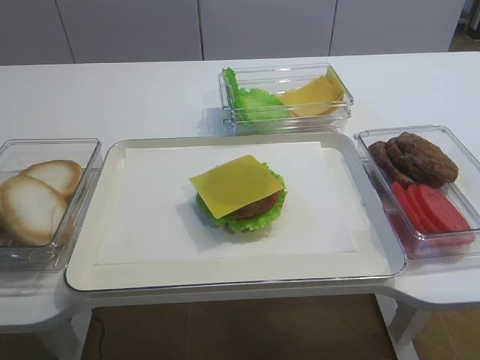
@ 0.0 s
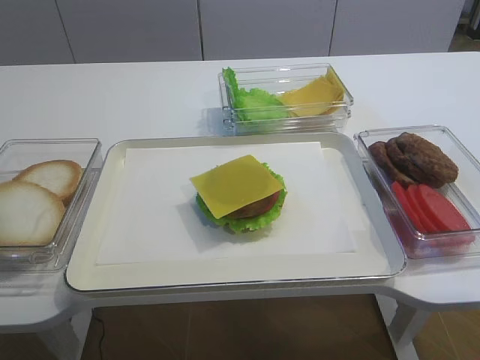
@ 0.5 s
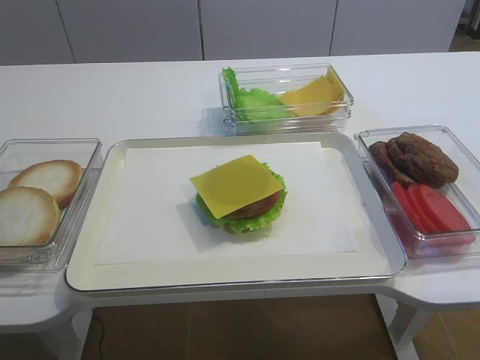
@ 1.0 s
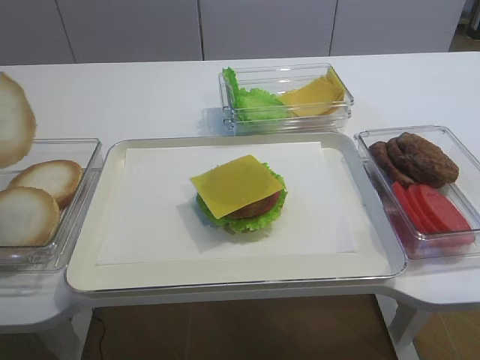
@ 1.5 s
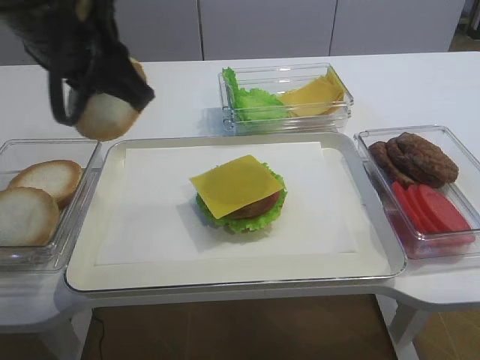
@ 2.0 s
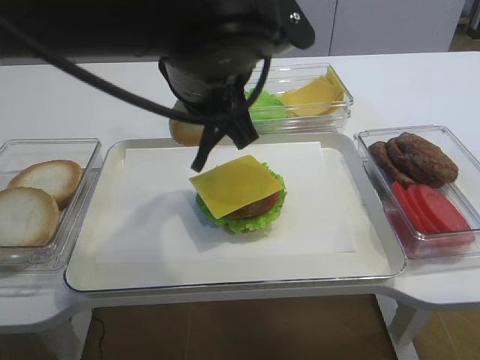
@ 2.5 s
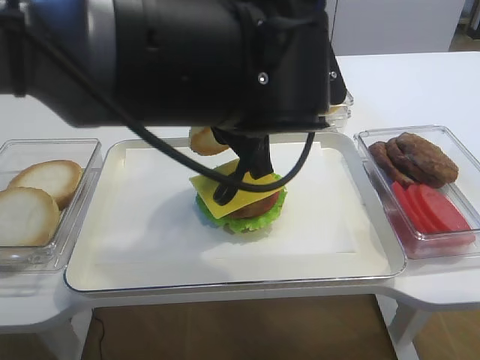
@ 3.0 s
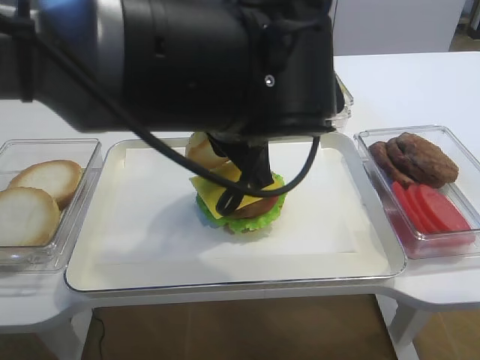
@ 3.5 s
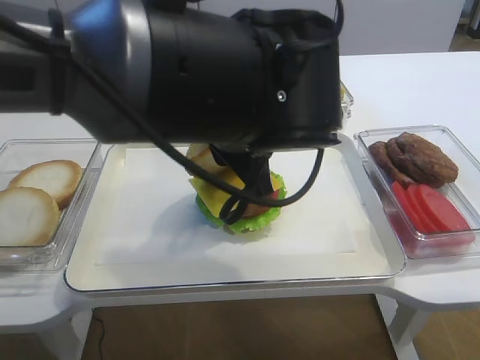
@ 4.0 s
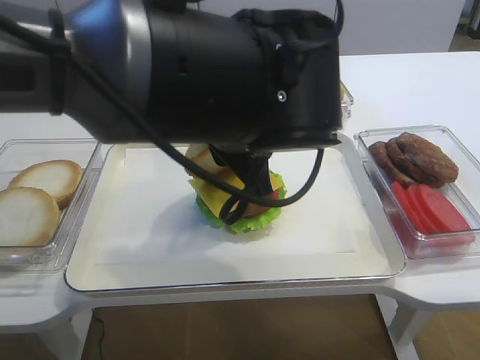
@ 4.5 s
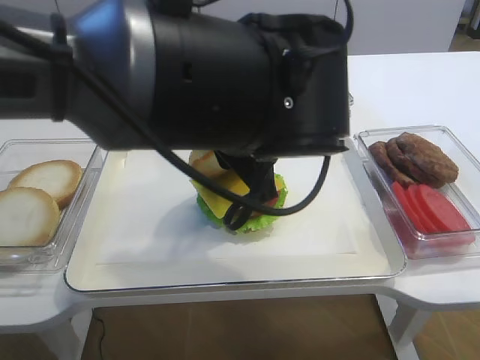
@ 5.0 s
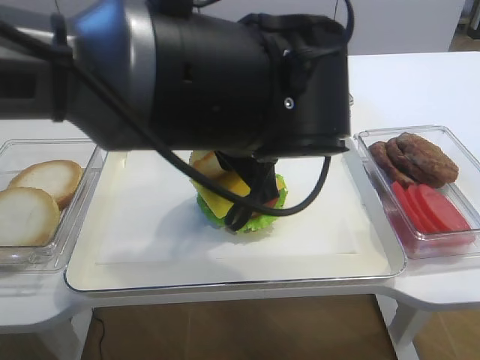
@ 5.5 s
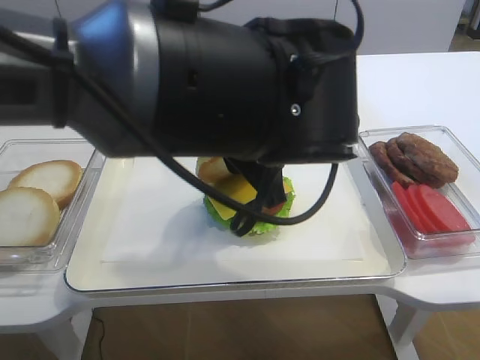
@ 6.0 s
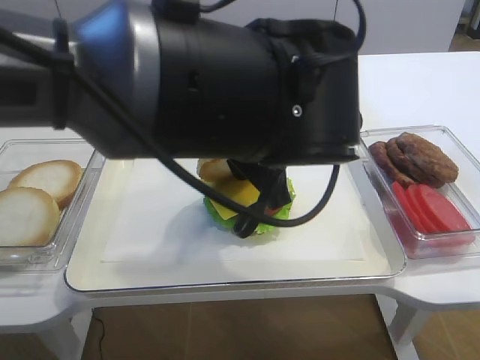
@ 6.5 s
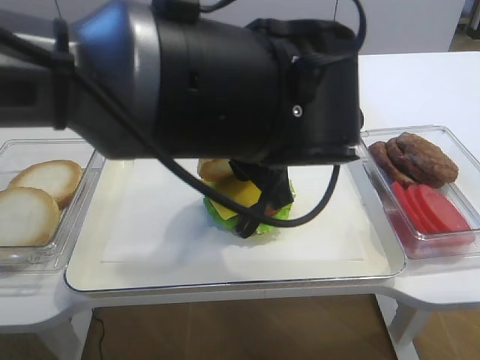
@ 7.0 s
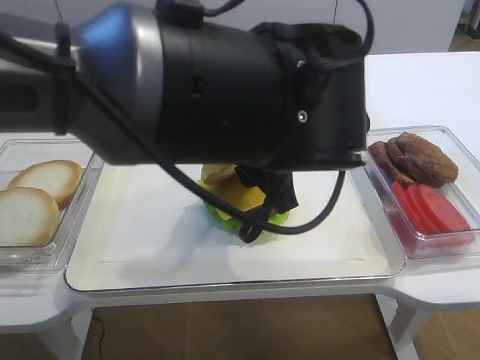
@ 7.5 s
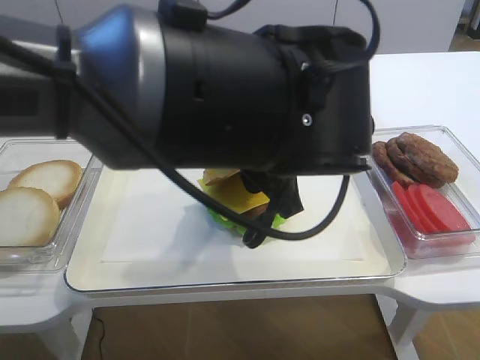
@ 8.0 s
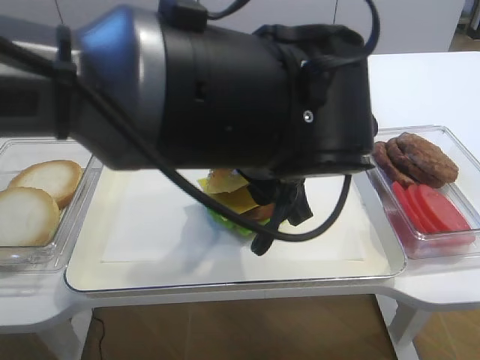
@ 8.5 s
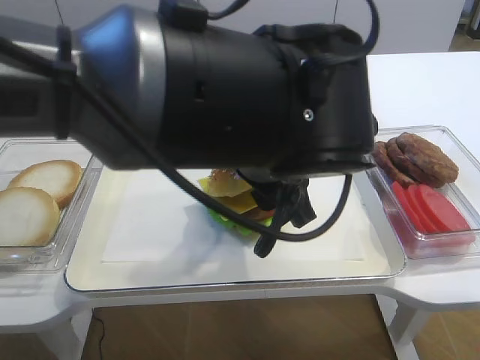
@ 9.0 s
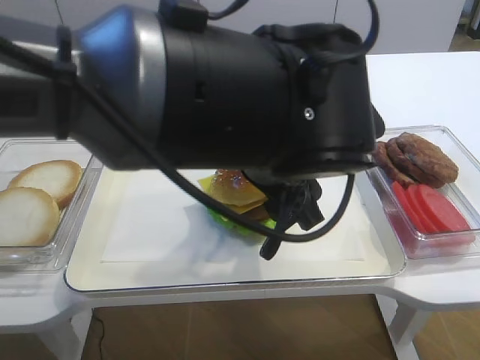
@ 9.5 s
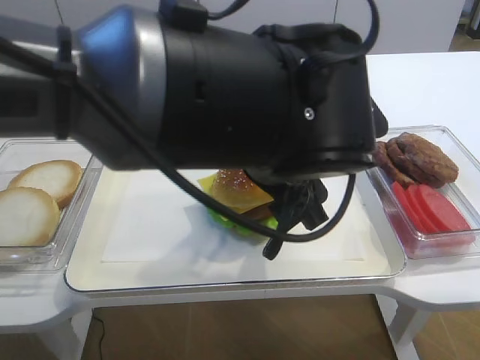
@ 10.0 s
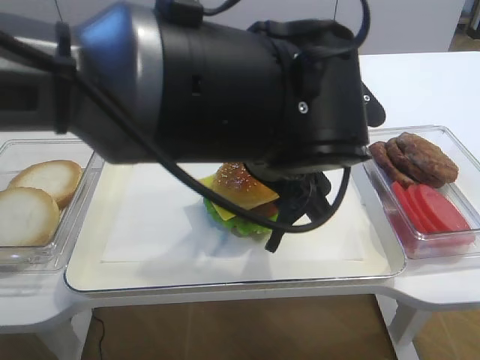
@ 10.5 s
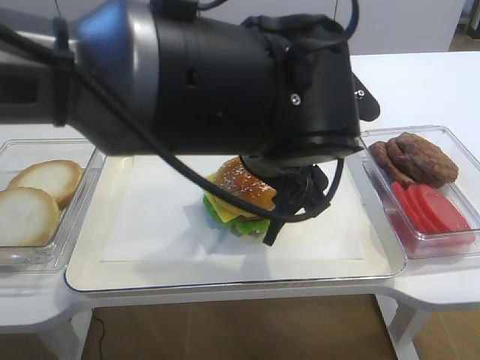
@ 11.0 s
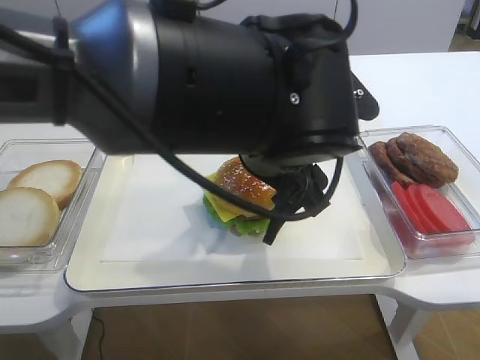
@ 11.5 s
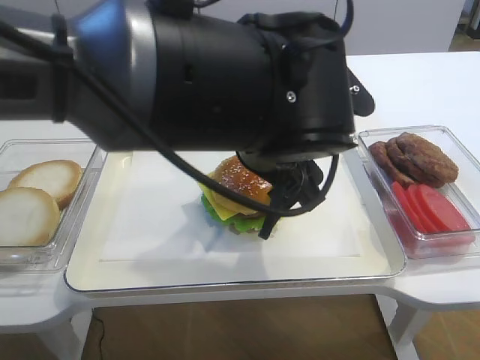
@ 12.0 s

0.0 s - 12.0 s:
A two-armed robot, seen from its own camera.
0.0 s - 2.0 s: The left gripper heads to the right and upward, covering roughly 25 cm.
2.0 s - 4.0 s: The left gripper moves to the right and downward, approximately 15 cm.
4.0 s - 6.0 s: Neither gripper changes place.
6.0 s - 8.0 s: Both grippers stay about where they are.
8.0 s - 10.0 s: The left gripper opens its fingers.
10.0 s - 12.0 s: The grippers make only small movements.

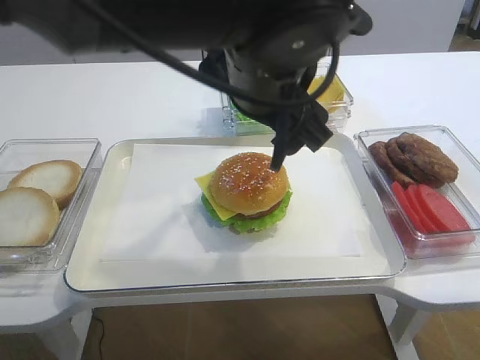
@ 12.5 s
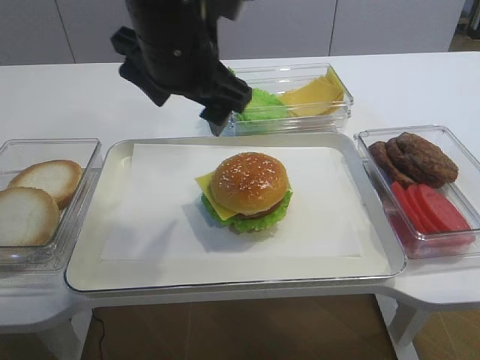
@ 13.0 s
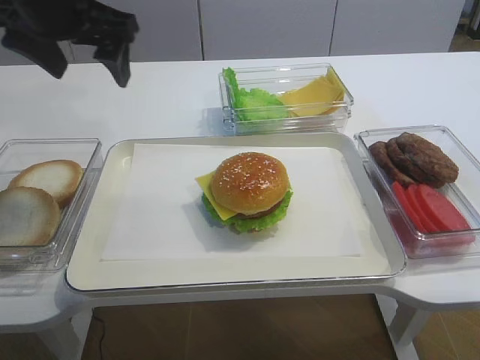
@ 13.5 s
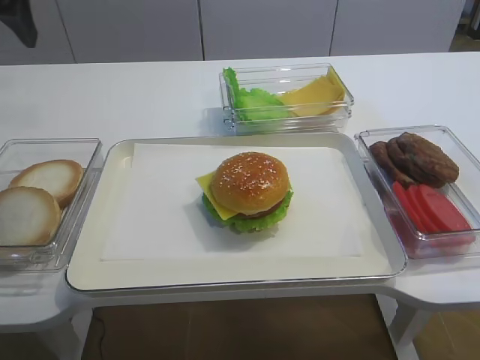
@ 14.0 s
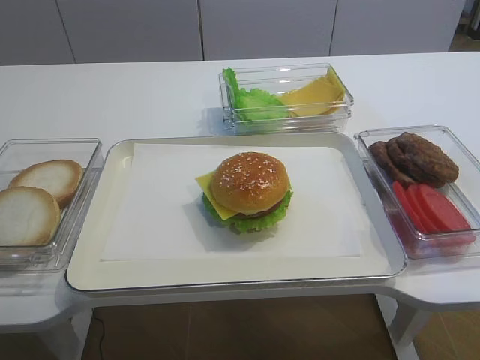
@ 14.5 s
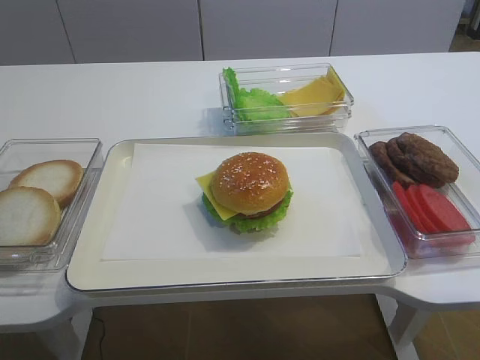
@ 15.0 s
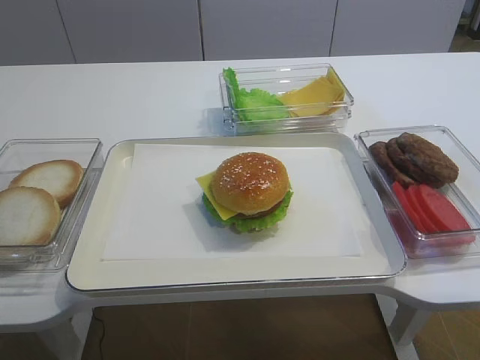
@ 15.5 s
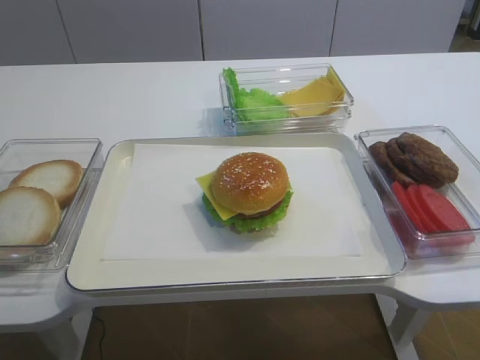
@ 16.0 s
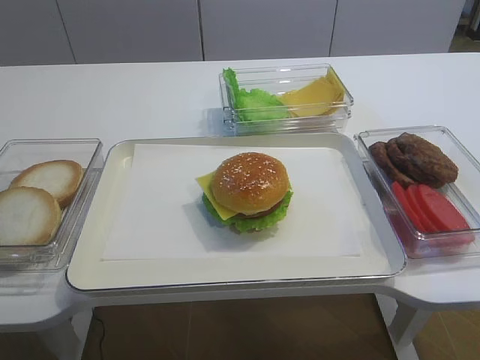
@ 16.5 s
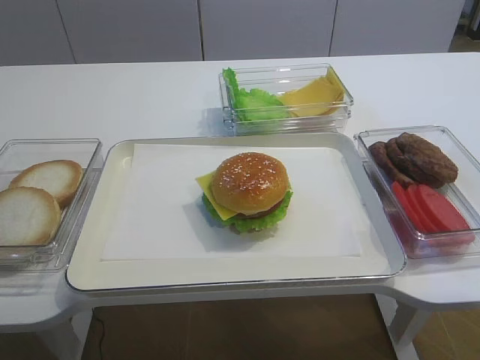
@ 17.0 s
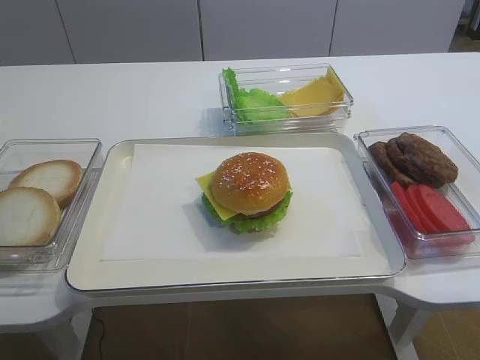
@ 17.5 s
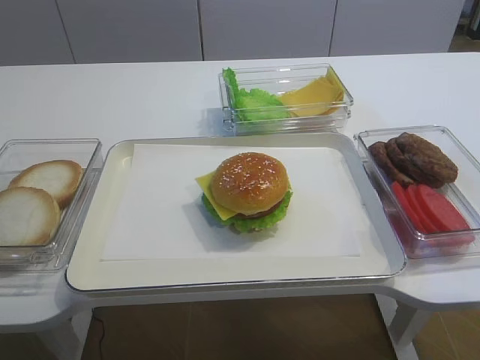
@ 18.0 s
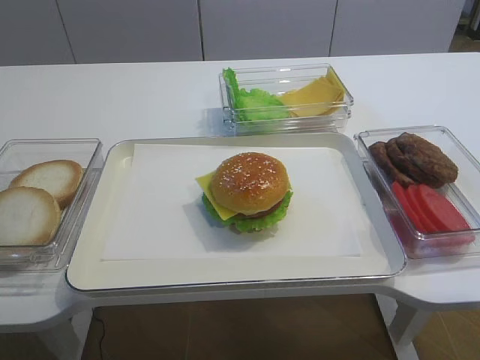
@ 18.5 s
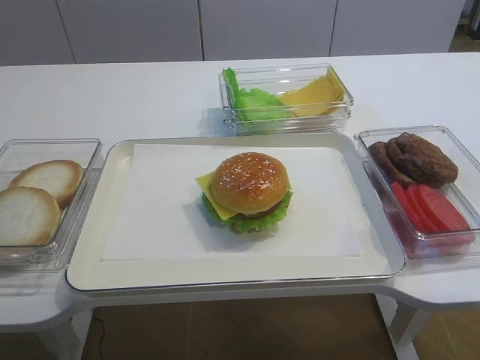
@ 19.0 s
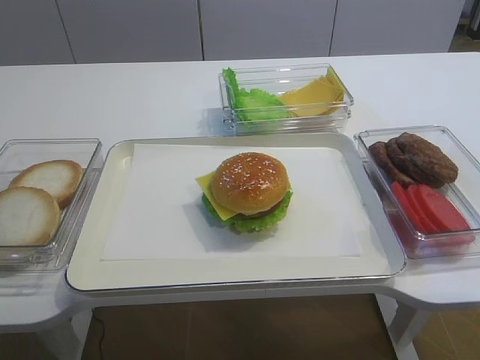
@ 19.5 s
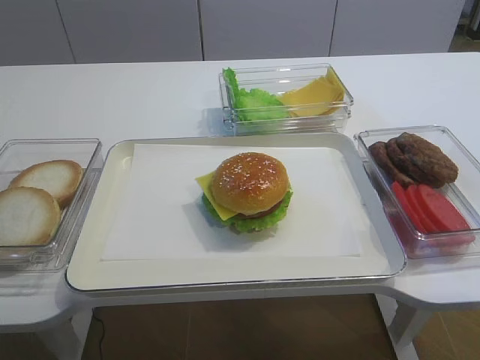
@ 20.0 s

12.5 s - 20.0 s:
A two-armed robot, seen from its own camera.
12.5 s - 14.5 s: The left gripper shifts some 30 cm to the left.
18.0 s - 20.0 s: The two grippers keep their place.

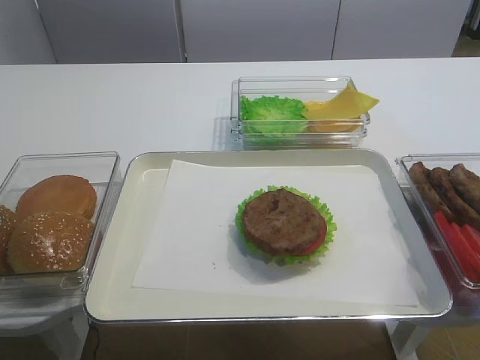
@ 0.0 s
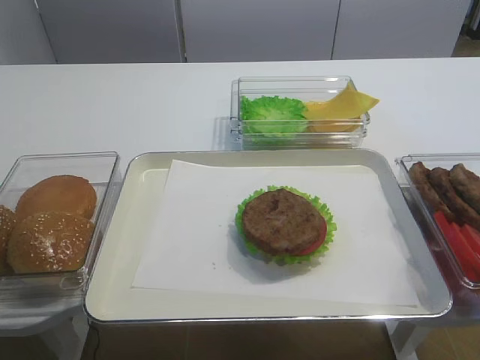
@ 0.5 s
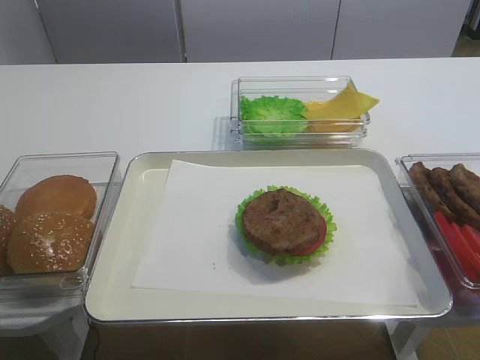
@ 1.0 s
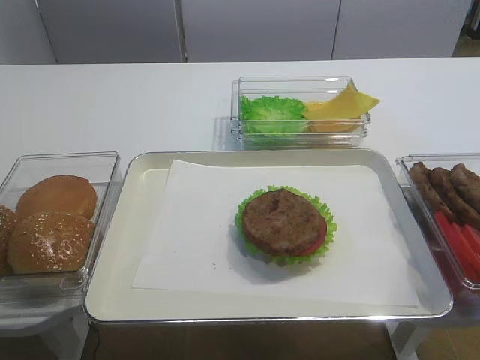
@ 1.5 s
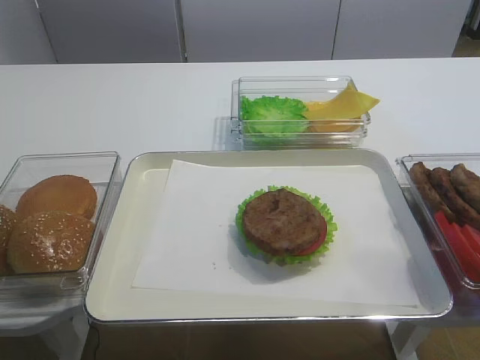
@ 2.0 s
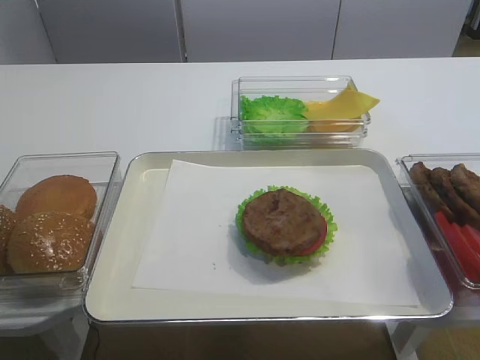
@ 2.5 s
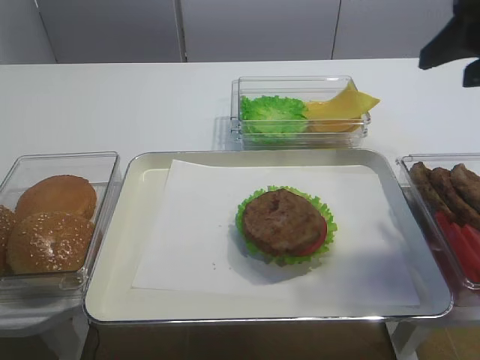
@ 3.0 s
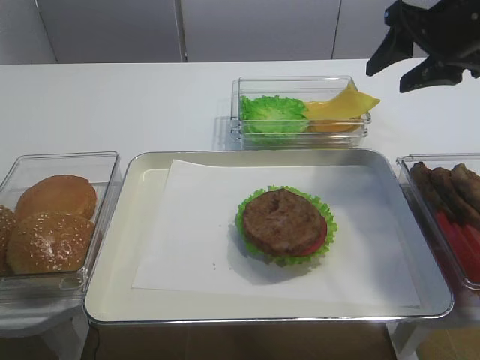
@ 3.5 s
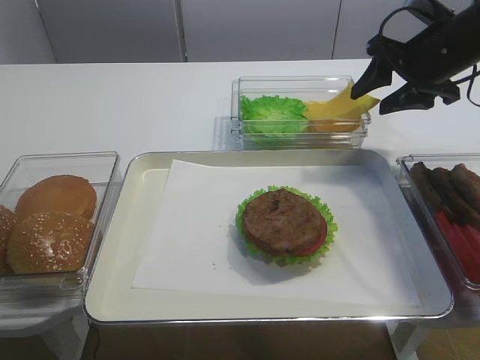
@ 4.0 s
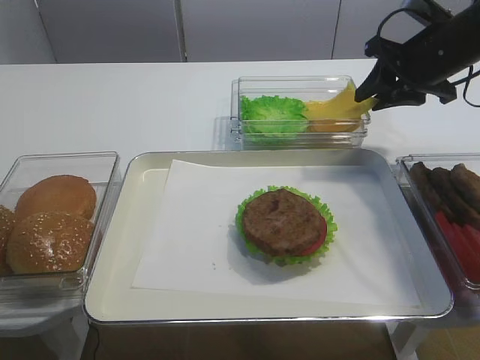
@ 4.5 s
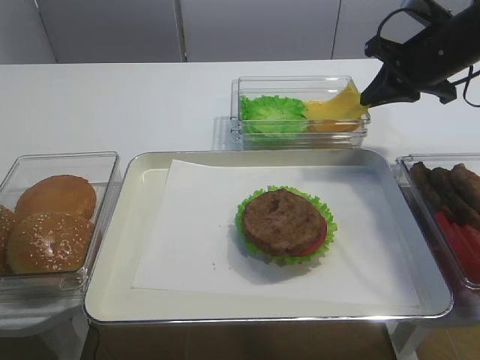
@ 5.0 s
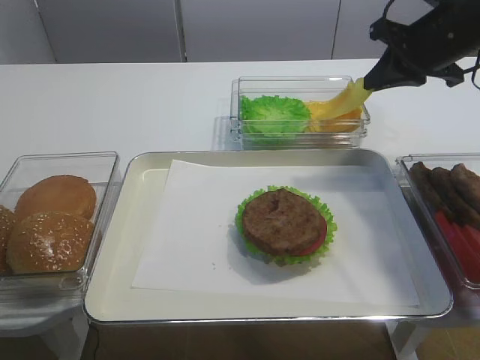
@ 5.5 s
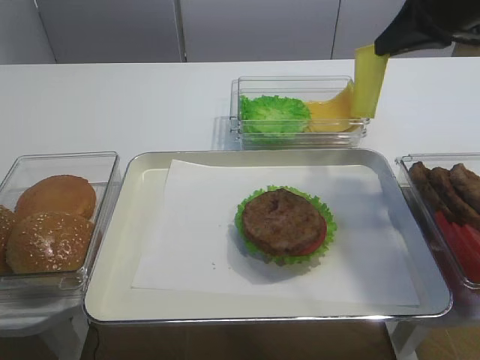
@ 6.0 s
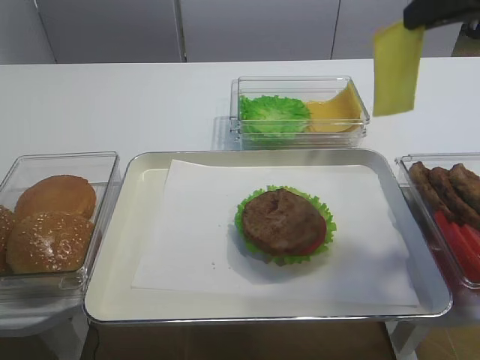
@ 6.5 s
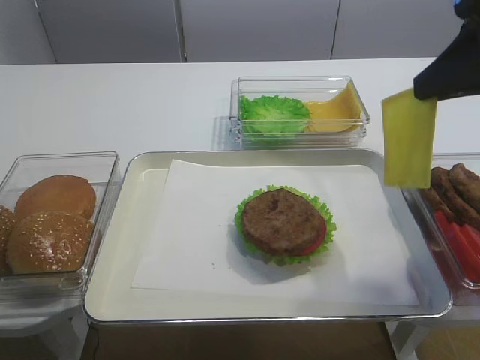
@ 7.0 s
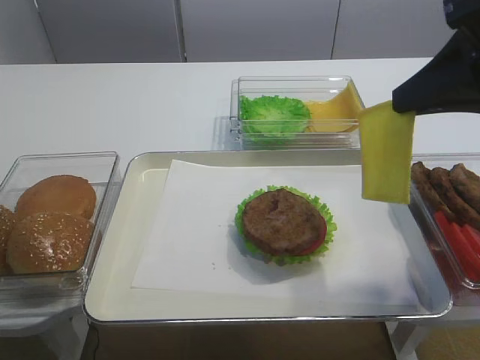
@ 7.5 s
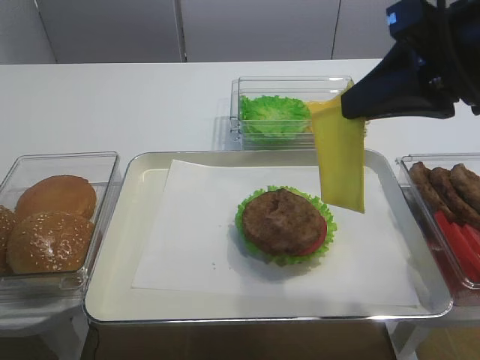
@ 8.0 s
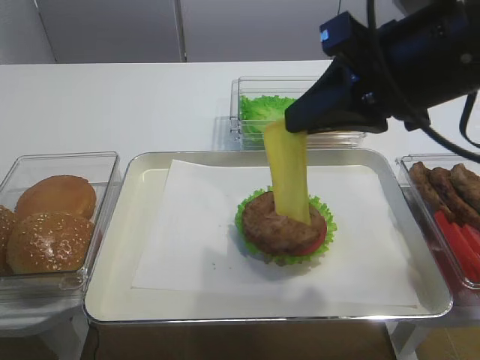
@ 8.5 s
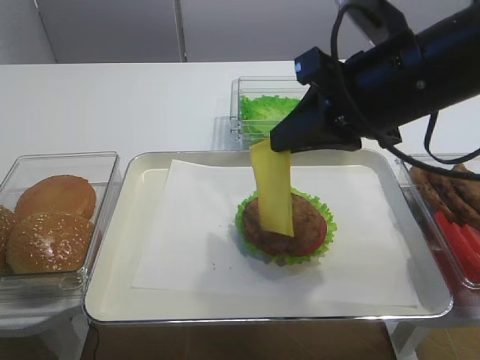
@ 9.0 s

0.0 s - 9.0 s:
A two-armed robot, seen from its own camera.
Step, 0.0 s - 5.5 s: Pick up the cheese slice with the right gripper.
2.0 s - 4.5 s: The right gripper shifts some 40 cm forward, and closes its fingers.
4.5 s - 7.0 s: The right gripper is displaced backward and upward by some 20 cm, and closes up.
7.0 s - 9.0 s: The right gripper shifts roughly 10 cm to the left and downward.
